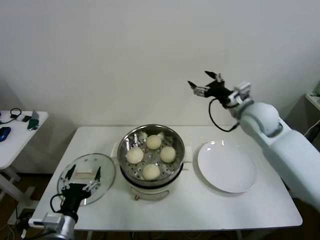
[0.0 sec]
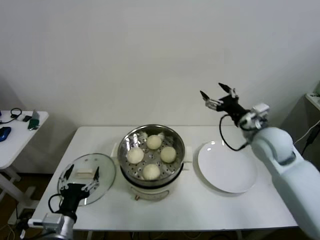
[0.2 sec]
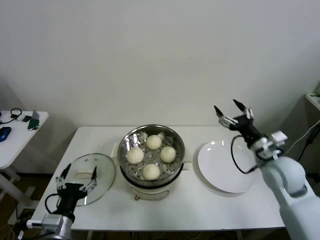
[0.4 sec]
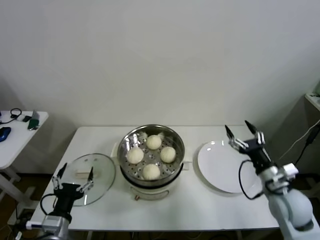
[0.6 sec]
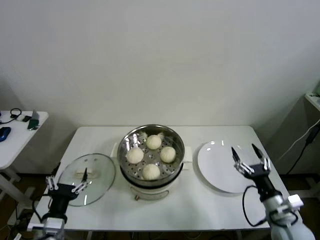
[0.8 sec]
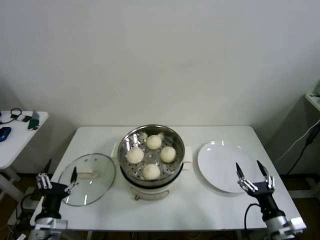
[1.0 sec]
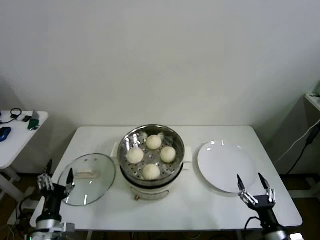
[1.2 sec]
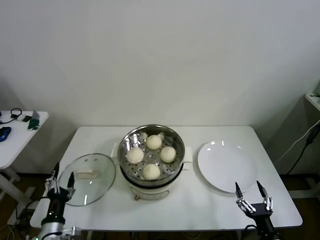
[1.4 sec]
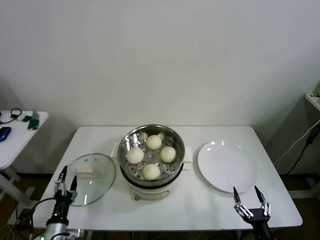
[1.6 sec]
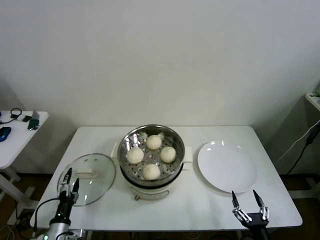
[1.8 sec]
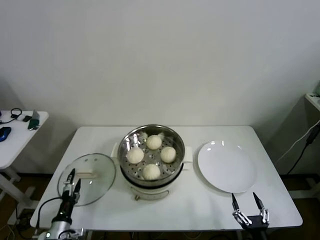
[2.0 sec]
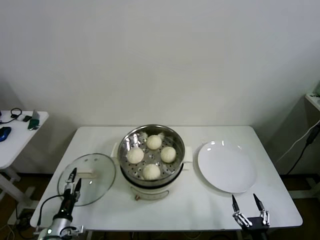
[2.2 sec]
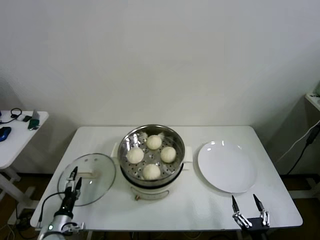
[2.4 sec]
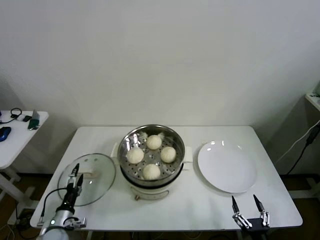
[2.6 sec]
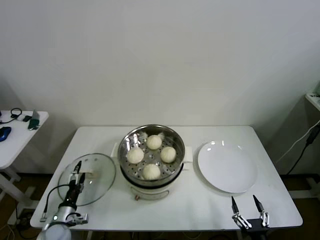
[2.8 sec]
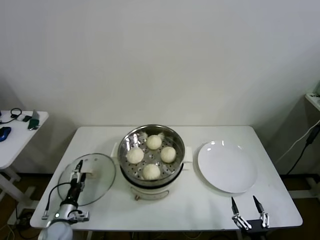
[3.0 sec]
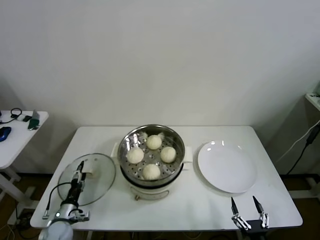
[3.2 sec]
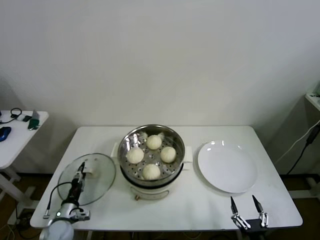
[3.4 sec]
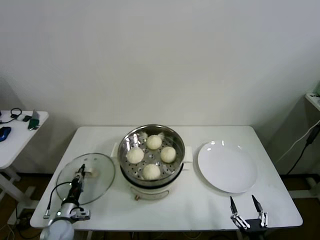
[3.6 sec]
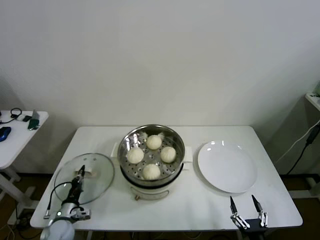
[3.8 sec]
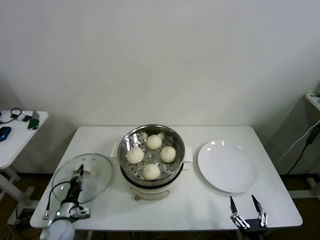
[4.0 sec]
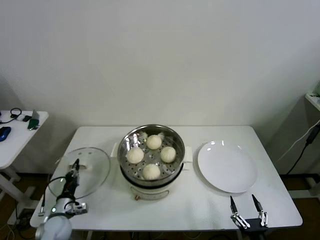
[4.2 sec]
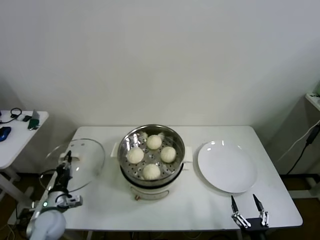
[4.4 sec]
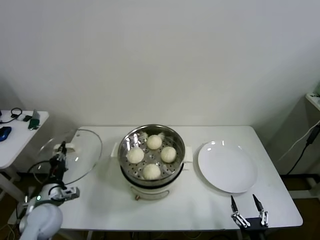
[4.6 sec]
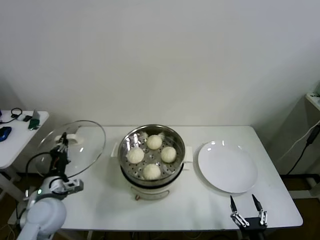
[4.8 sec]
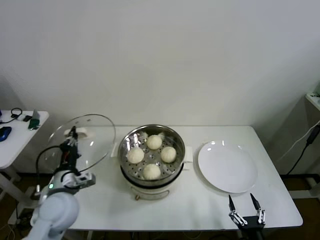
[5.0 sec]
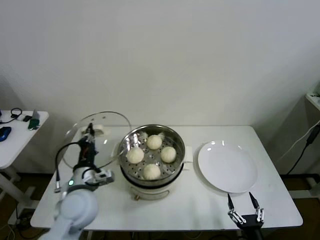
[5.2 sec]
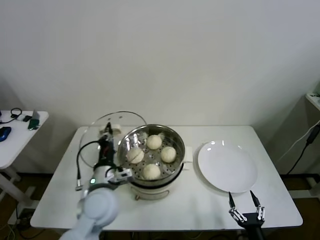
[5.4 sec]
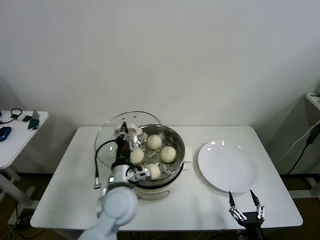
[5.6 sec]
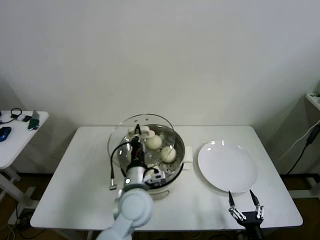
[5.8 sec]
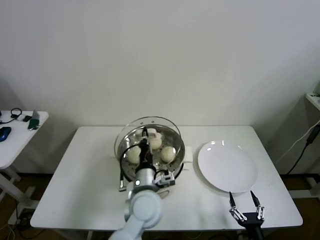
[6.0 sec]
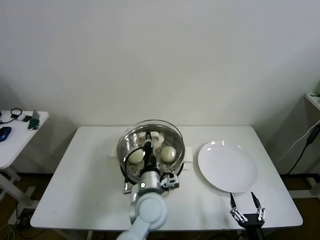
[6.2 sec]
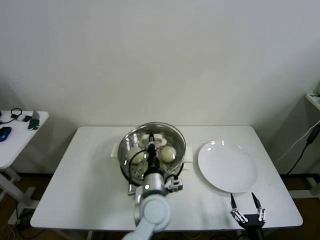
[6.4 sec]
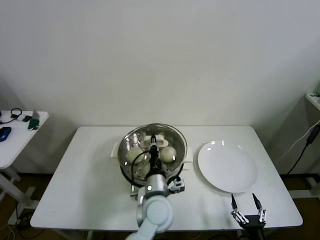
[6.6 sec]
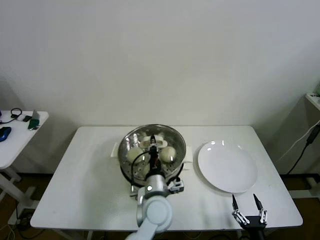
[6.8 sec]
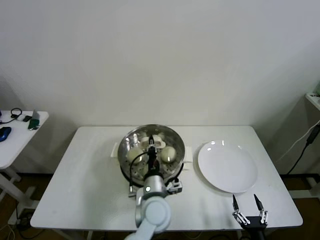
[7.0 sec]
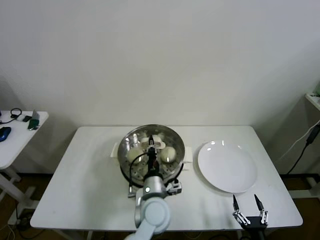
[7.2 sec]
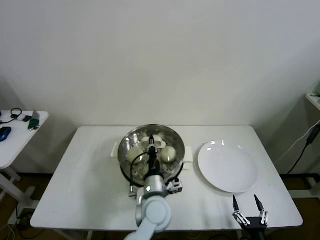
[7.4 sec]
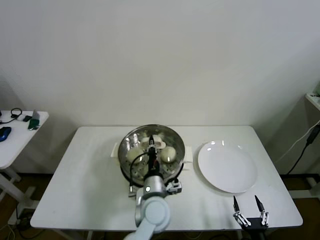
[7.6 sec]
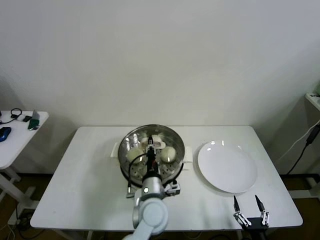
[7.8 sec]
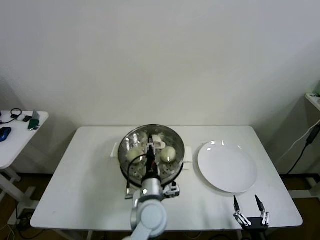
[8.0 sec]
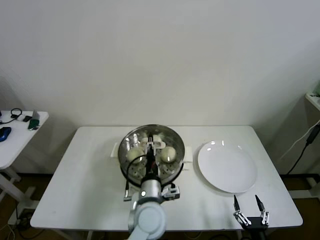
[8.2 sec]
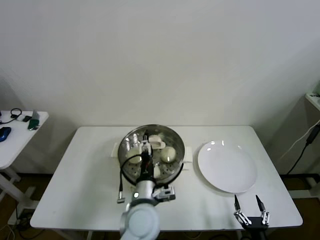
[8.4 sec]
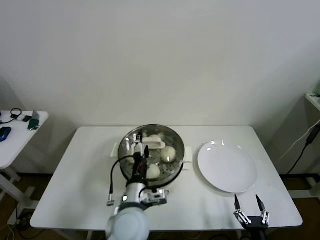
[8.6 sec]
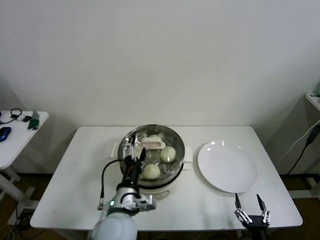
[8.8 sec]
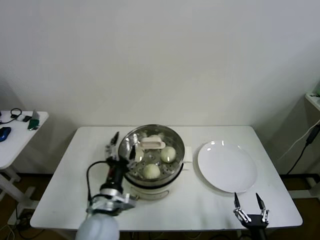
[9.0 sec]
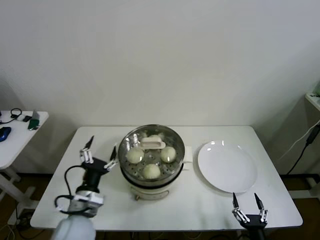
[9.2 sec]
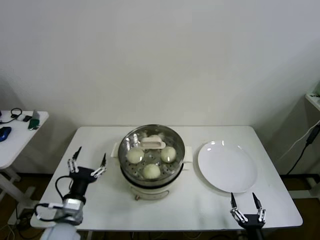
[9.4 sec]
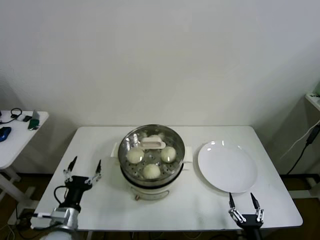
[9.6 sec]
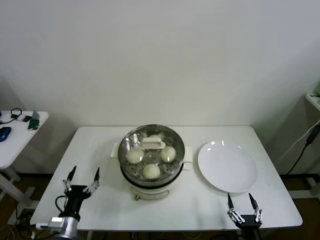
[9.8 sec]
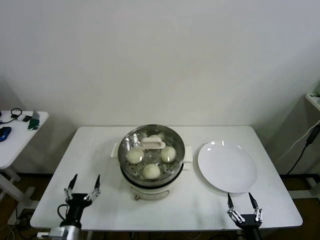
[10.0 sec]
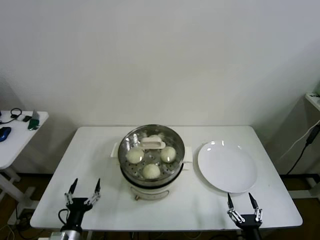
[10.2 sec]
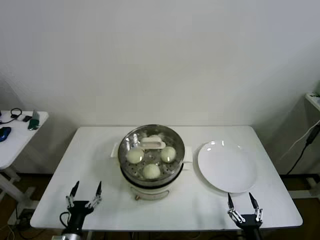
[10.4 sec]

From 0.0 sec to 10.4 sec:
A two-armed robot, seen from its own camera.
Step, from 0.0 sec to 3.6 sec: Grasp the pot lid with left gripper.
Step, from 3.8 sec to 7.0 sec: Place the pot lid on the steamer with left gripper.
From 0.0 sec to 1.4 sec: The left gripper heads downward and to the left, covering about 10 cm, while the right gripper moves backward and downward, some 50 cm.
From 1.4 sec to 3.0 sec: The left gripper is displaced downward and forward by approximately 15 cm; the right gripper shifts by some 5 cm.
From 3.0 sec to 4.4 sec: The left gripper is displaced upward by approximately 5 cm, and closes its fingers.
From 4.4 sec to 6.0 sec: The left gripper travels to the right and upward by roughly 35 cm.
From 6.0 sec to 7.4 sec: The left gripper moves some 5 cm.
From 7.4 sec to 9.0 sec: The left gripper heads to the left and backward, covering roughly 15 cm, and opens up.
From 9.0 sec to 10.4 sec: The left gripper is displaced to the left, downward and backward by roughly 25 cm.
